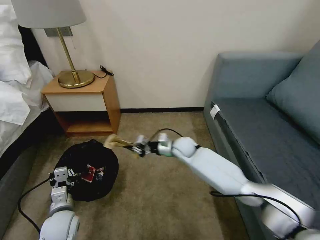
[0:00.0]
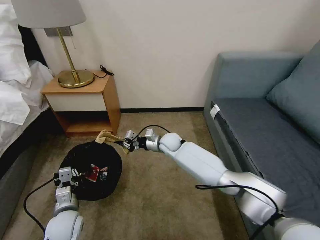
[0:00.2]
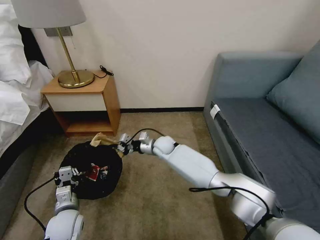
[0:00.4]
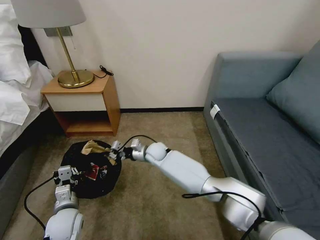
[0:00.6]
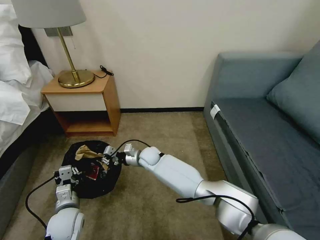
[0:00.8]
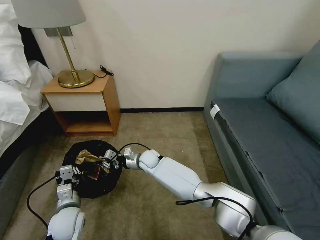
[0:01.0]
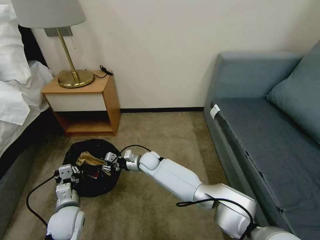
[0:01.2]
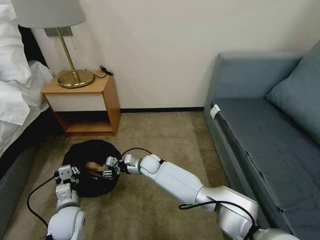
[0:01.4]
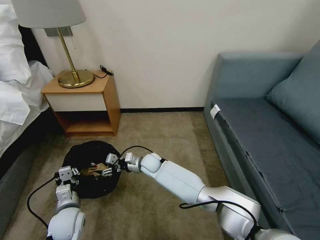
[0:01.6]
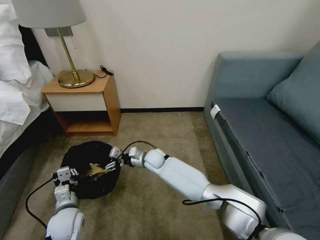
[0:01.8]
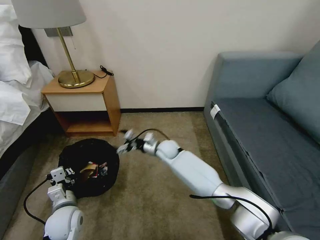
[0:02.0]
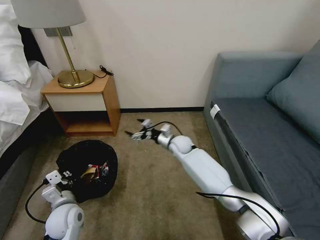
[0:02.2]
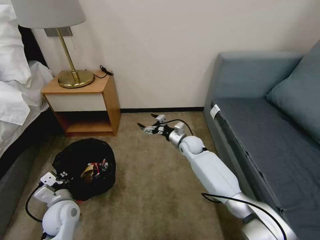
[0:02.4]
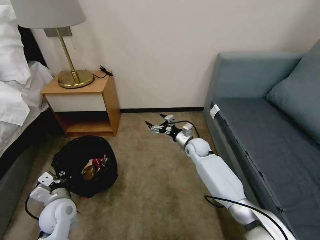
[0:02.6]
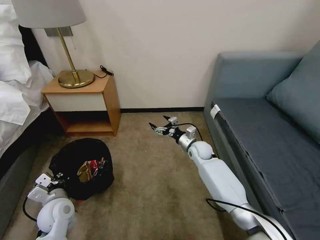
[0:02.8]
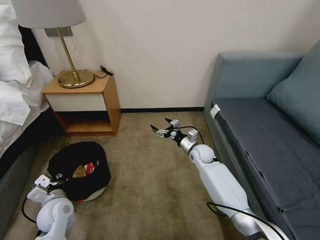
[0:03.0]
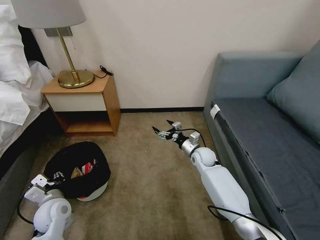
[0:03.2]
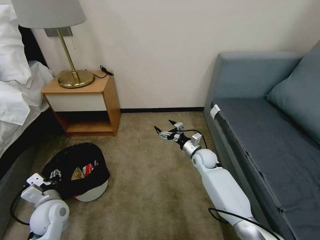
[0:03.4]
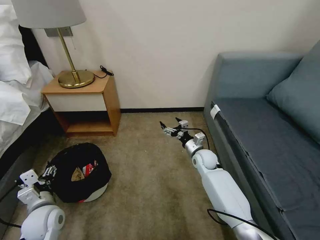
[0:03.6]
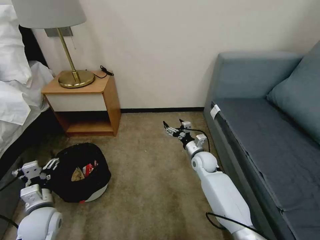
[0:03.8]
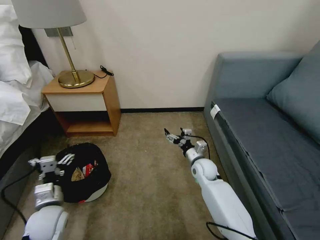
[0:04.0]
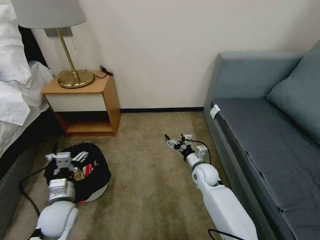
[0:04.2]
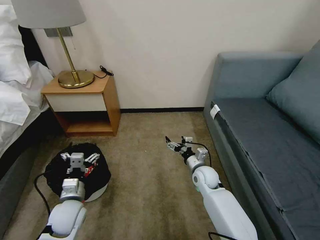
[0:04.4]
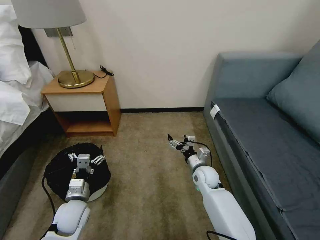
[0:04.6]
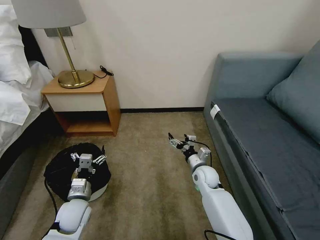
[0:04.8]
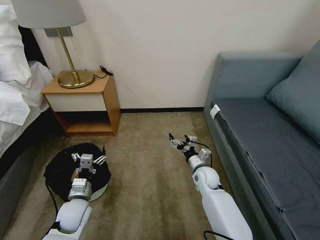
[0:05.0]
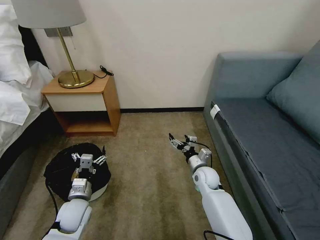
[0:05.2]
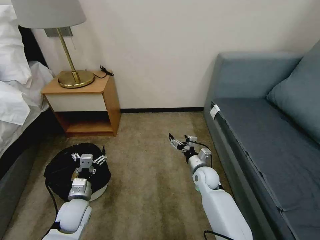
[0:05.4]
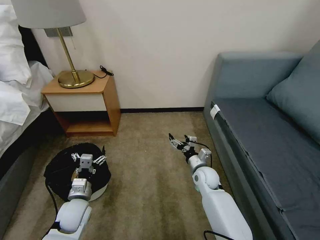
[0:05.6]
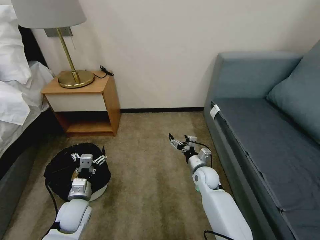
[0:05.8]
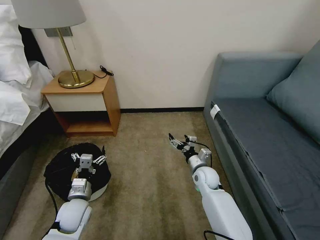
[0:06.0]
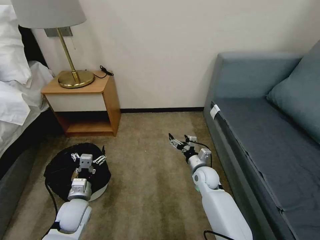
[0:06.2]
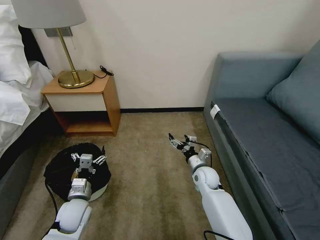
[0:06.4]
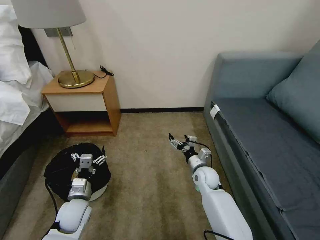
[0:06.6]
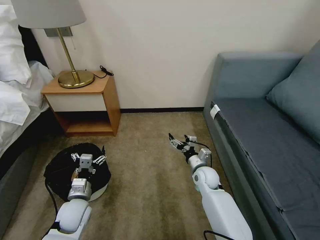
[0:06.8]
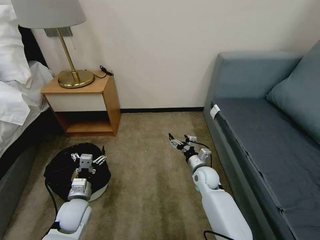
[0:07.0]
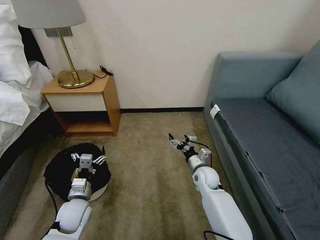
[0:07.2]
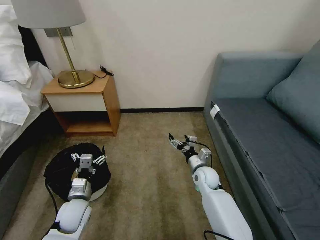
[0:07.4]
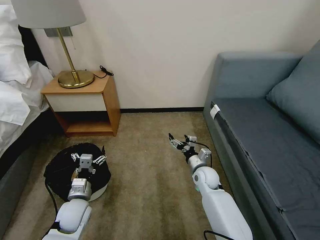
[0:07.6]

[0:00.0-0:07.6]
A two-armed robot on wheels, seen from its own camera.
Task of the whole recording: Pick up the trash bin, then pick up the garbage on the floor and place it into the trash bin.
0:00.0 to 0:01.6: The right gripper shifts roughly 15 cm to the left and downward, and opens its fingers.
0:01.6 to 0:03.0: The right gripper shifts some 20 cm to the right, and opens its fingers.
0:03.0 to 0:04.6: The right gripper goes about 10 cm backward, while the left gripper opens.
0:04.6 to 0:07.6: Both grippers stay about where they are.

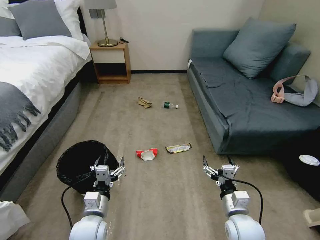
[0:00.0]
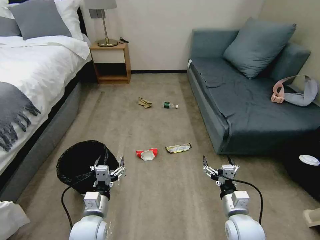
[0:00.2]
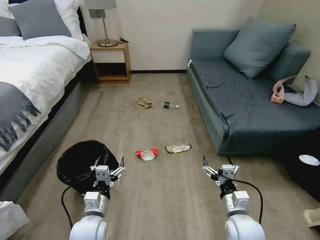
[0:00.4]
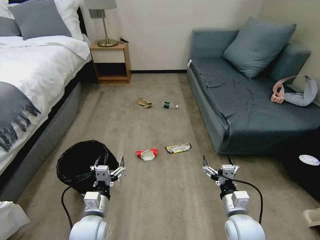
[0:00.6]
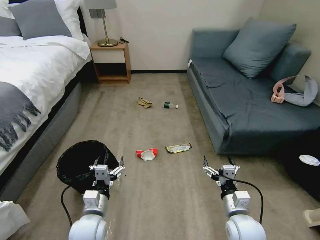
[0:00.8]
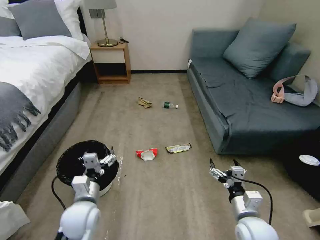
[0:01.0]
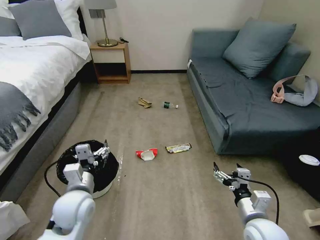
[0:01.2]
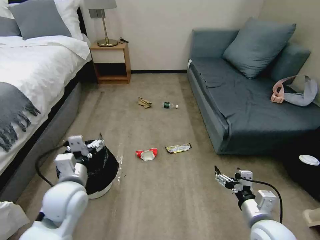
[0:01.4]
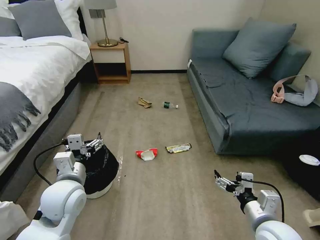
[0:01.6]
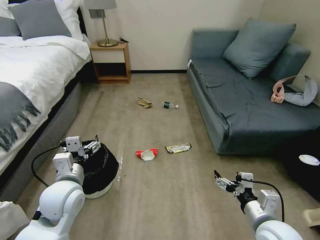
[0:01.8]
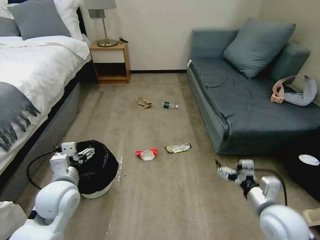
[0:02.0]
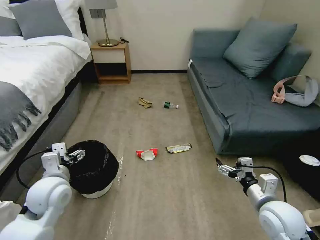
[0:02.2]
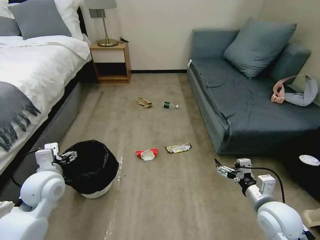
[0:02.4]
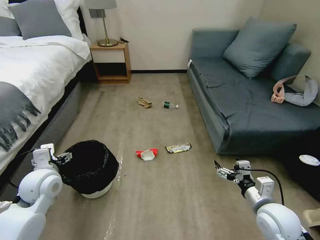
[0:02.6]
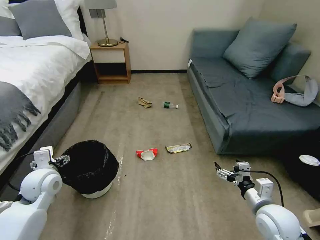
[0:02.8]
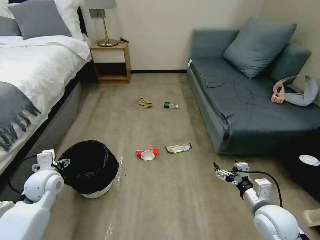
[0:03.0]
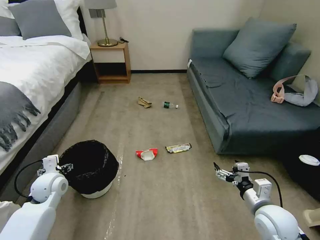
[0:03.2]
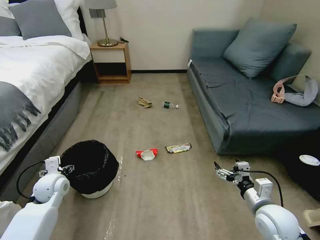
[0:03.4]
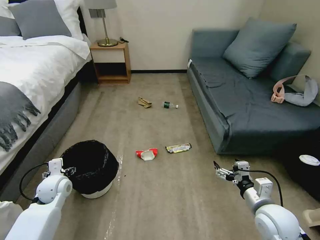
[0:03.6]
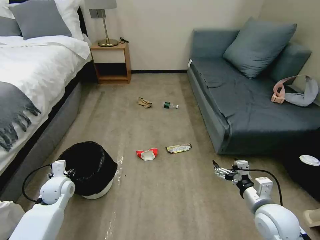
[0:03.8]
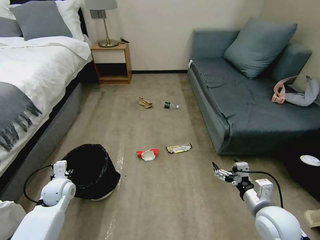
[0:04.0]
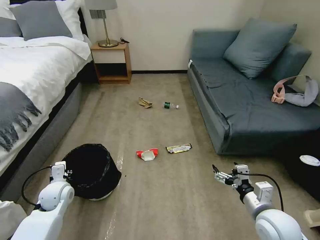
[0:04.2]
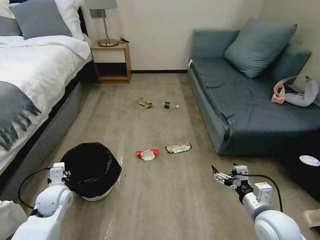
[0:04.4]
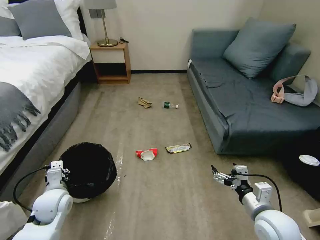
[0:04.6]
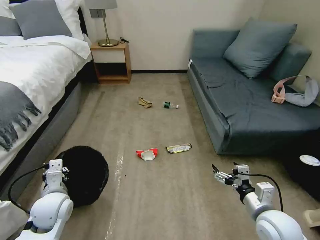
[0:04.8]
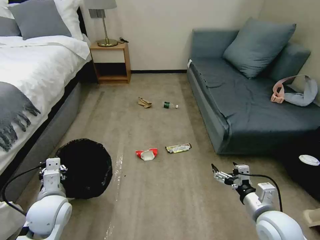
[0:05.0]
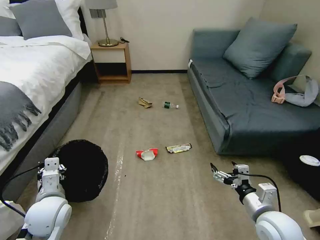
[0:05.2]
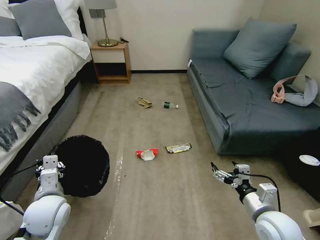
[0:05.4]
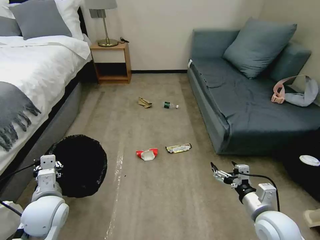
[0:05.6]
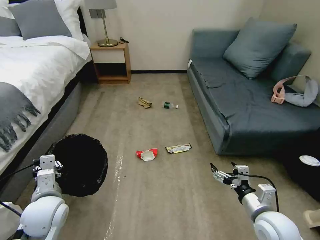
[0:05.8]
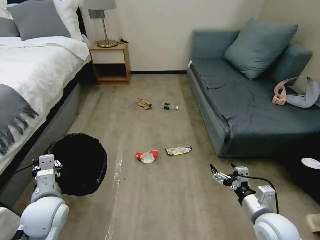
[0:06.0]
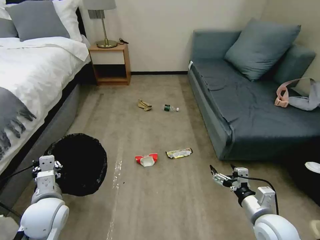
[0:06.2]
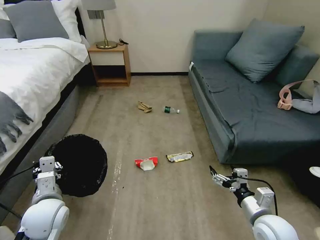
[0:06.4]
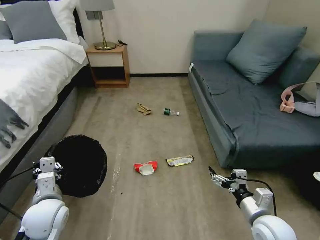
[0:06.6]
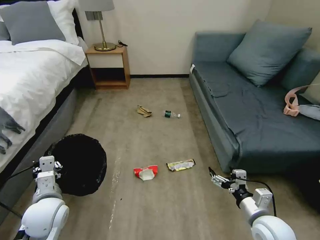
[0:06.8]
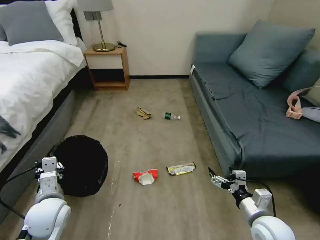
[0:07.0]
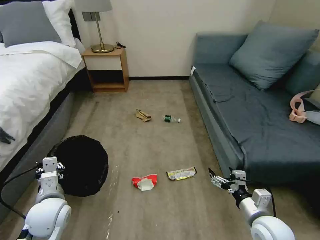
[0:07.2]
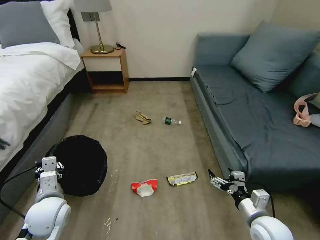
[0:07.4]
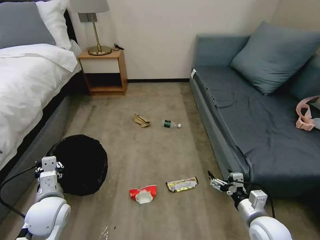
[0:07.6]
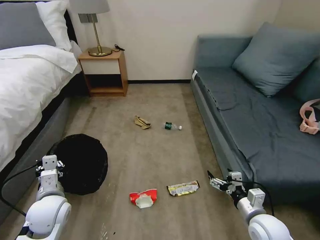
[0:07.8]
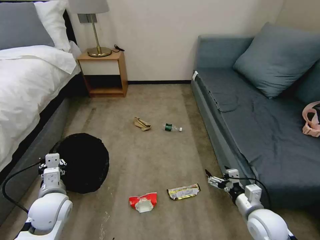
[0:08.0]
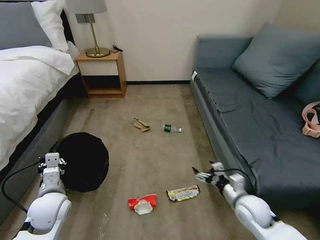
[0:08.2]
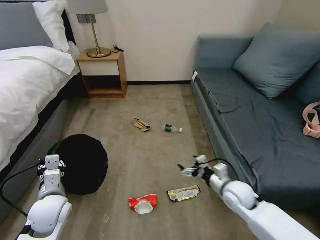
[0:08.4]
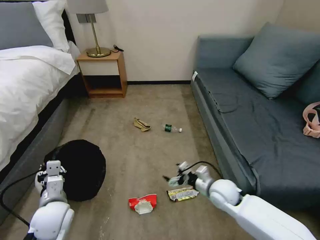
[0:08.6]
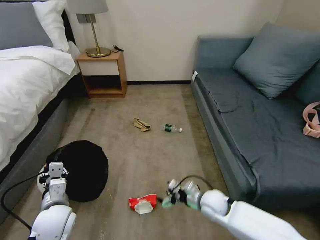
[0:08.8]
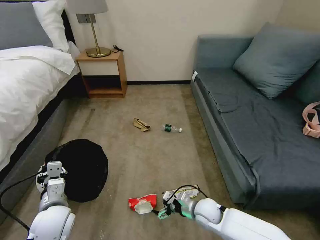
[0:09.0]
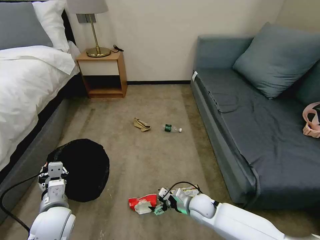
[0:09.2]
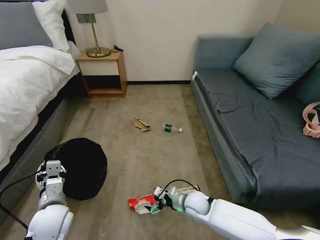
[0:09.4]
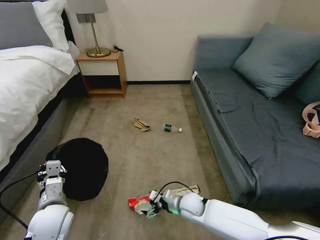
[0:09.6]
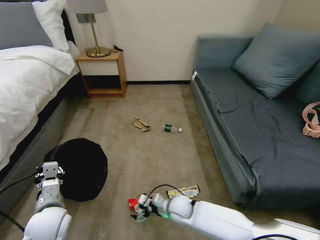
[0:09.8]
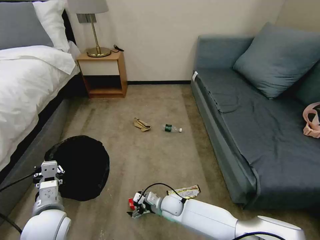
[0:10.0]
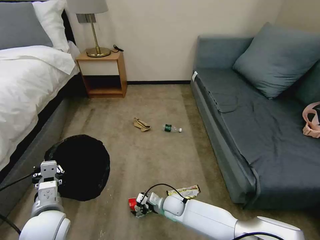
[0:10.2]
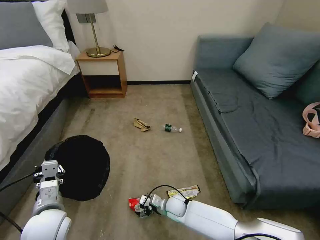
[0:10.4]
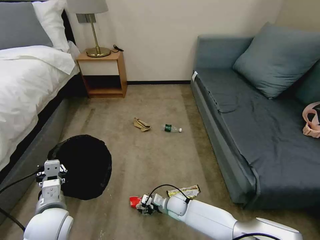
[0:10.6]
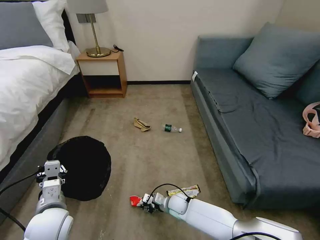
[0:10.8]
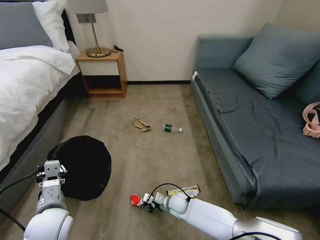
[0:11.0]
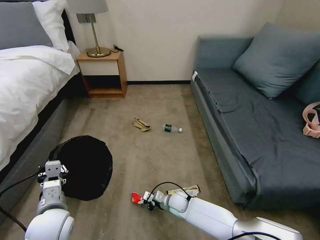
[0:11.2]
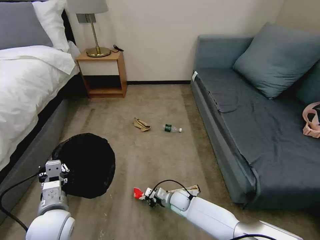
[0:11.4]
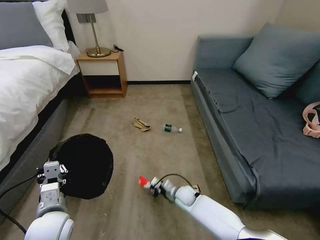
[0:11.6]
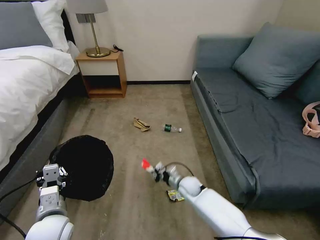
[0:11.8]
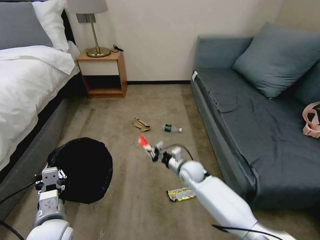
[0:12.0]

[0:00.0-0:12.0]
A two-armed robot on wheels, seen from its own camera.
Task of the whole recording: Pick up the trash bin, then pick up the garbage on the floor and place it into the trash bin.
0:01.6 to 0:03.0: The right gripper shifts by approximately 5 cm; the left gripper is displaced to the left, forward and downward by some 15 cm.
0:03.0 to 0:04.4: The left gripper shifts approximately 5 cm downward, and closes its fingers.
0:04.4 to 0:06.0: The left gripper is displaced upward and backward by approximately 10 cm.
0:07.6 to 0:09.0: The right gripper travels to the left, downward and forward by roughly 20 cm.
0:09.0 to 0:10.4: The right gripper shifts roughly 15 cm to the left and downward.
0:10.4 to 0:12.0: The right gripper goes approximately 15 cm upward and forward, and closes up.

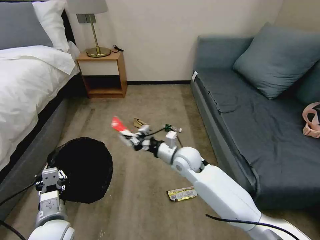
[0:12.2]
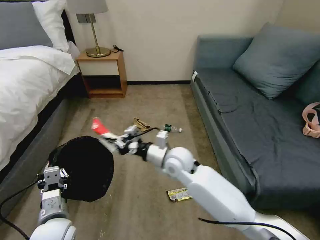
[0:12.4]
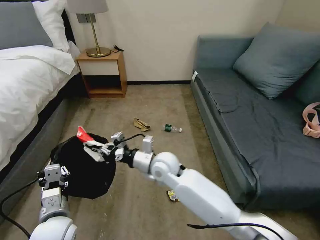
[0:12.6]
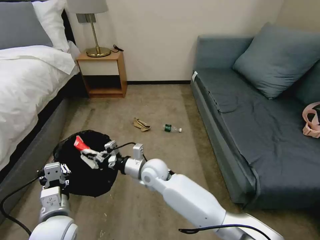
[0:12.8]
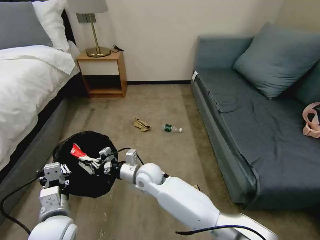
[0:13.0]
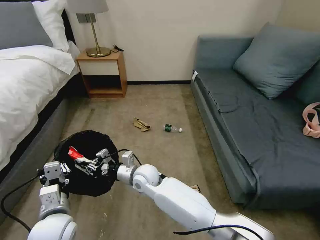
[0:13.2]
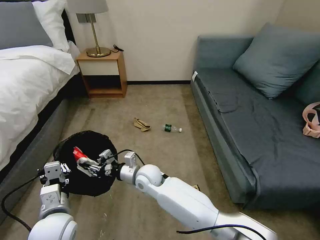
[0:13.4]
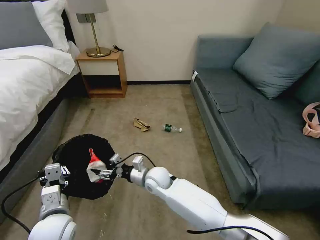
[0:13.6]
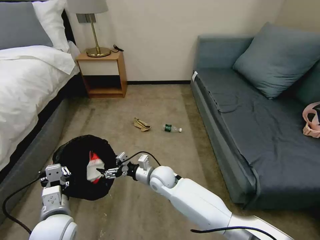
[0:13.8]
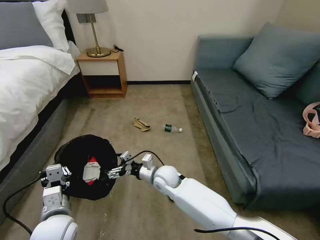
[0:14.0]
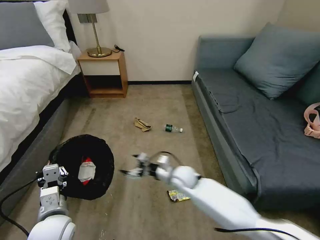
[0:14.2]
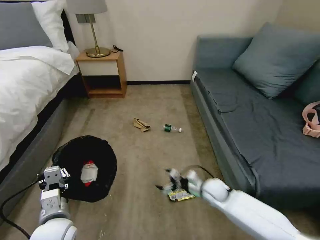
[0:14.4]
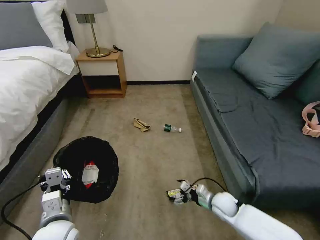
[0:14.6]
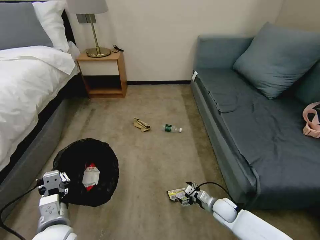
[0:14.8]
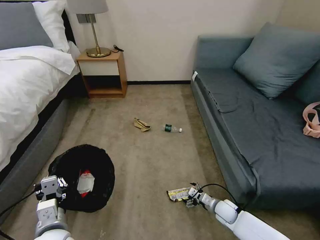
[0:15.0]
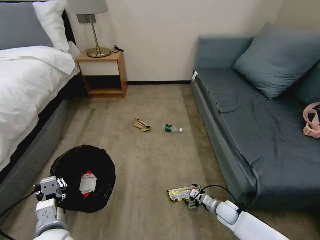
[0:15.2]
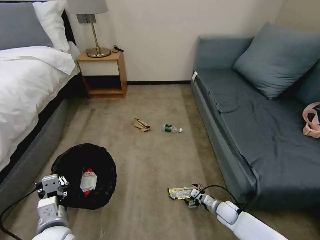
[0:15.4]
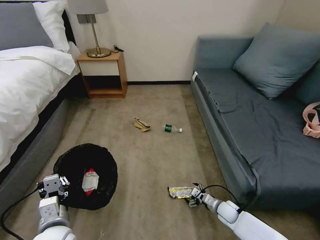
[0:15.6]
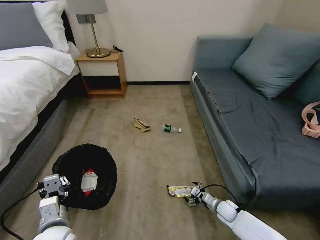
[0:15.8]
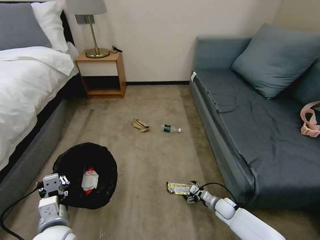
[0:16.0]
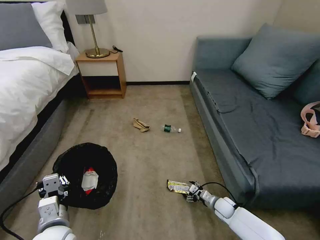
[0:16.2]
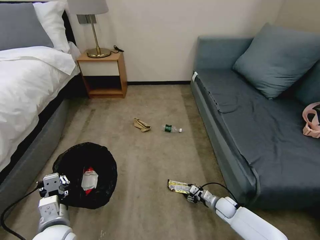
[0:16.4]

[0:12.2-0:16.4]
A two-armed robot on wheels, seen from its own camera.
Task of the whole recording: Pick up the trash bin, then pick up the garbage on the floor and place it into the trash bin.
0:12.2 to 0:13.6: The right gripper goes some 15 cm to the left and downward, and opens up.
0:13.6 to 0:15.0: The right gripper travels to the right and downward by approximately 35 cm, and opens up.
0:15.0 to 0:16.4: The right gripper closes.
